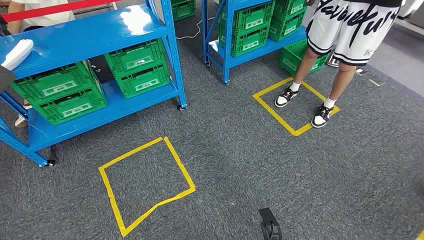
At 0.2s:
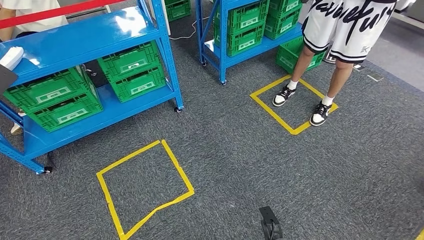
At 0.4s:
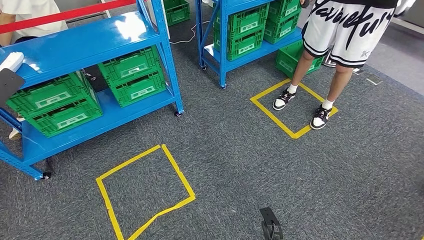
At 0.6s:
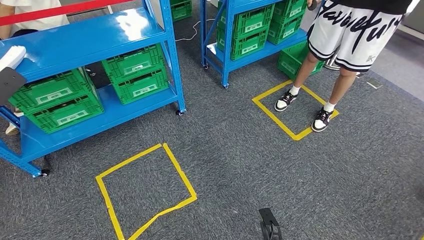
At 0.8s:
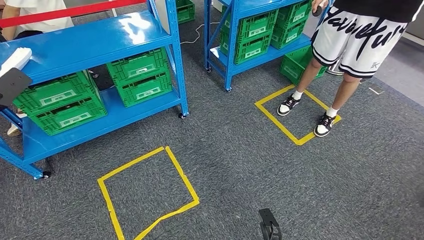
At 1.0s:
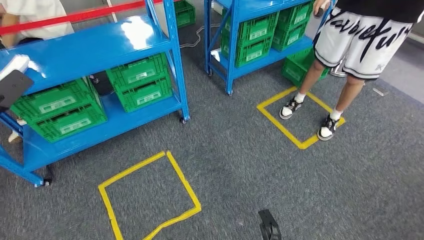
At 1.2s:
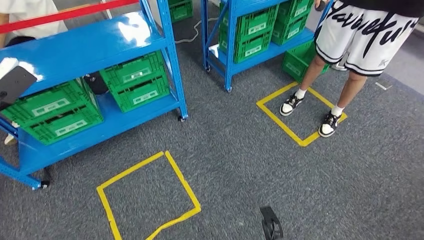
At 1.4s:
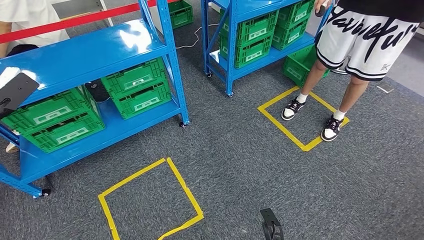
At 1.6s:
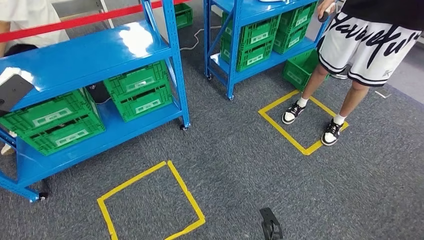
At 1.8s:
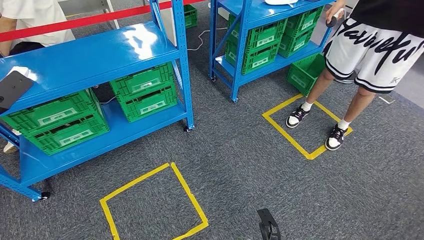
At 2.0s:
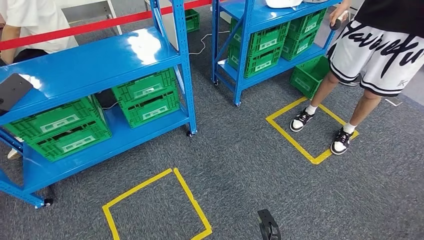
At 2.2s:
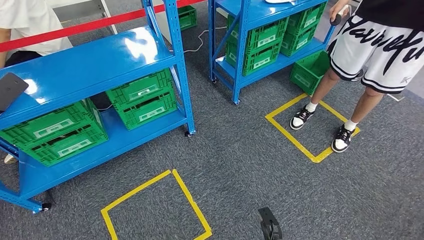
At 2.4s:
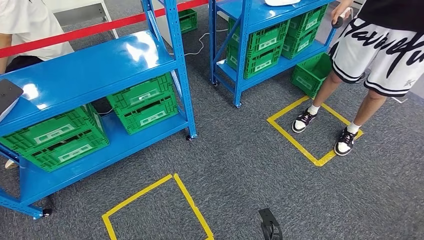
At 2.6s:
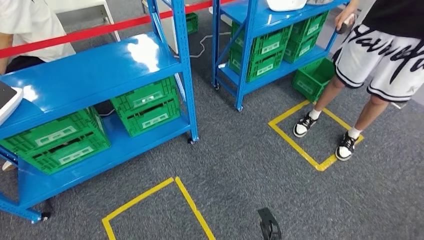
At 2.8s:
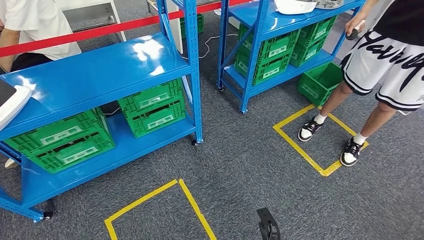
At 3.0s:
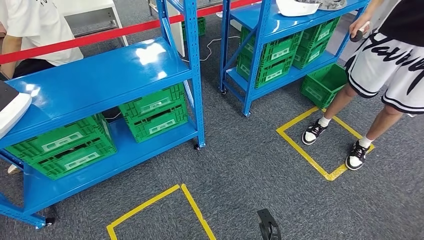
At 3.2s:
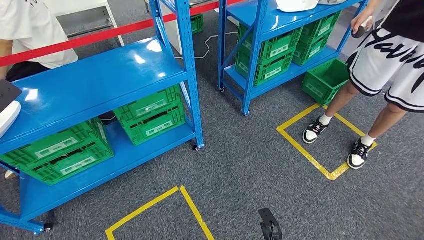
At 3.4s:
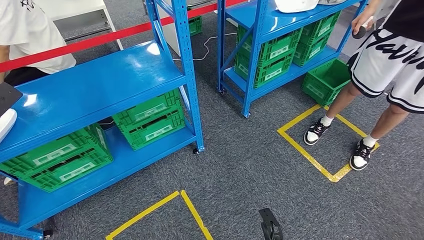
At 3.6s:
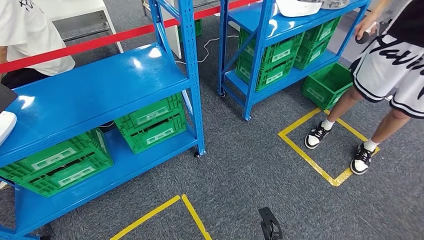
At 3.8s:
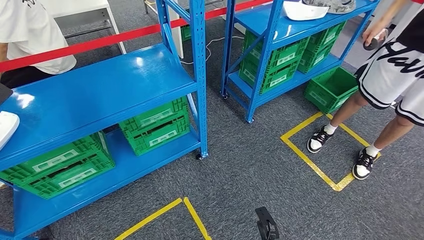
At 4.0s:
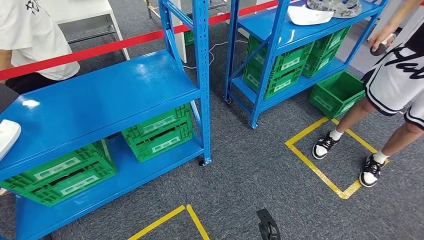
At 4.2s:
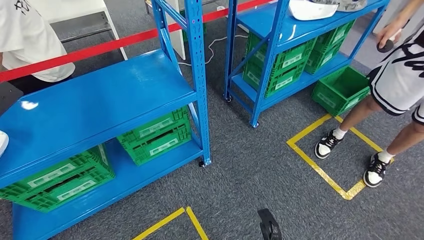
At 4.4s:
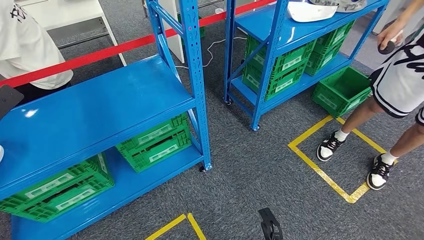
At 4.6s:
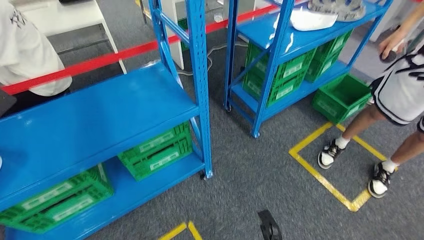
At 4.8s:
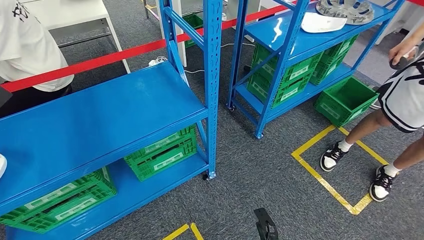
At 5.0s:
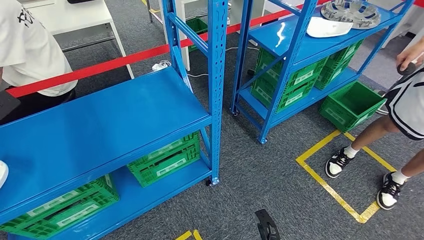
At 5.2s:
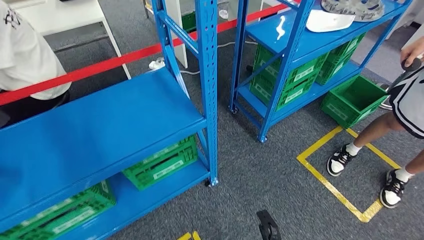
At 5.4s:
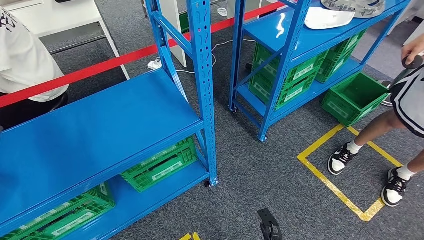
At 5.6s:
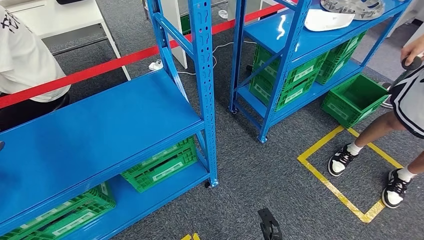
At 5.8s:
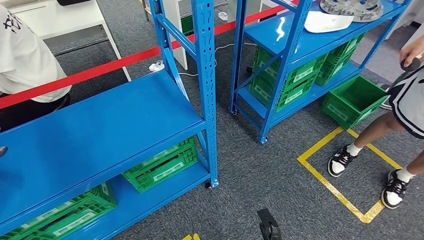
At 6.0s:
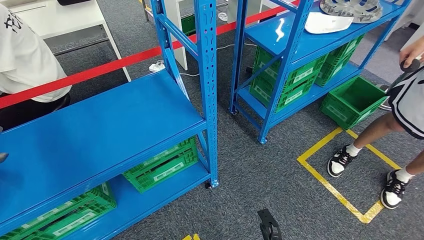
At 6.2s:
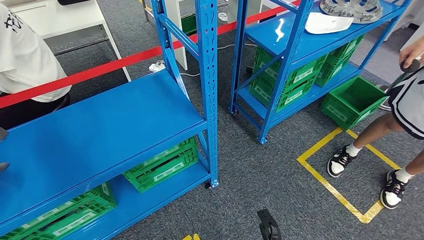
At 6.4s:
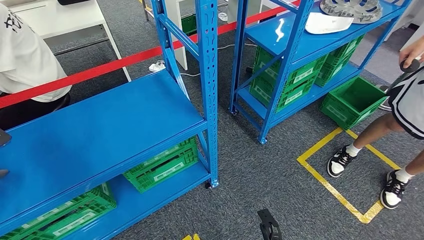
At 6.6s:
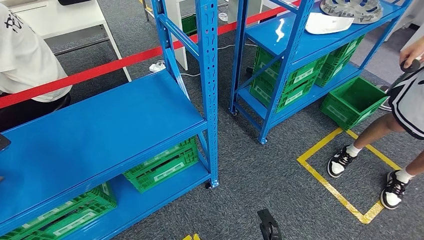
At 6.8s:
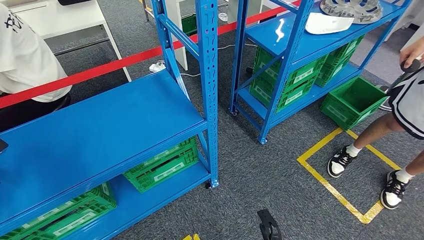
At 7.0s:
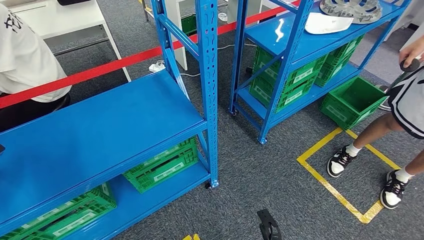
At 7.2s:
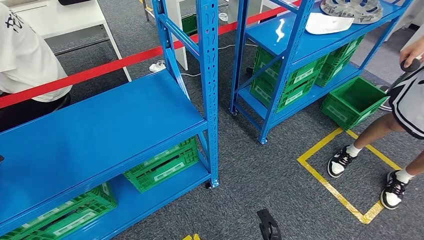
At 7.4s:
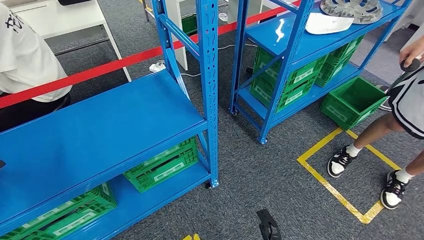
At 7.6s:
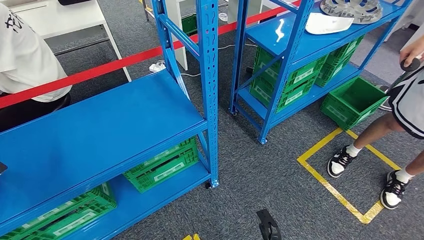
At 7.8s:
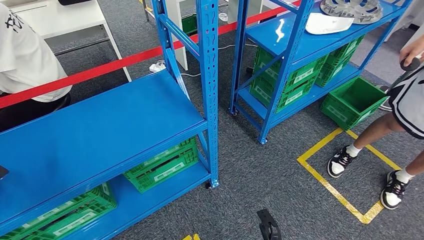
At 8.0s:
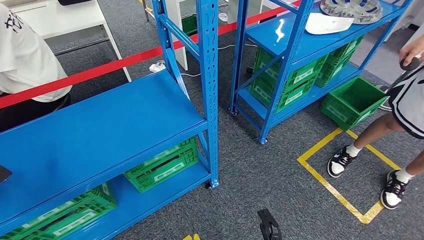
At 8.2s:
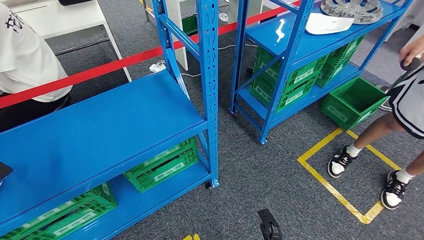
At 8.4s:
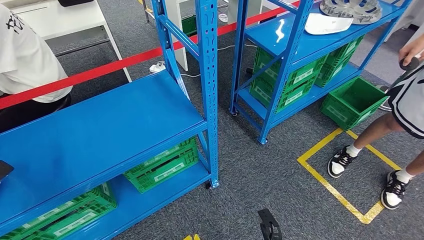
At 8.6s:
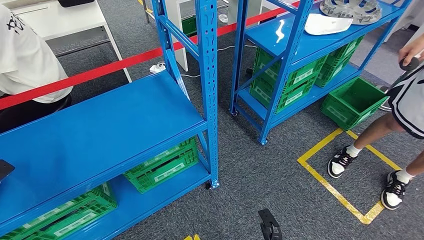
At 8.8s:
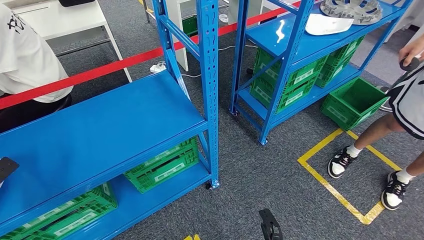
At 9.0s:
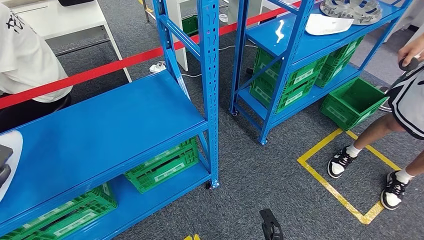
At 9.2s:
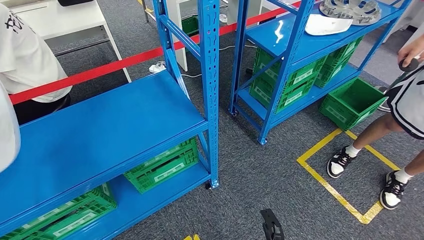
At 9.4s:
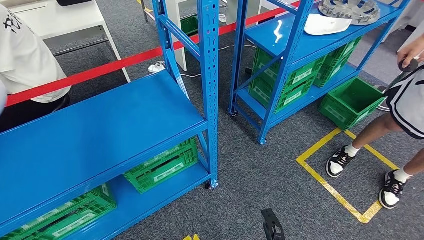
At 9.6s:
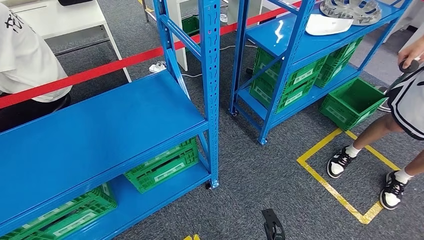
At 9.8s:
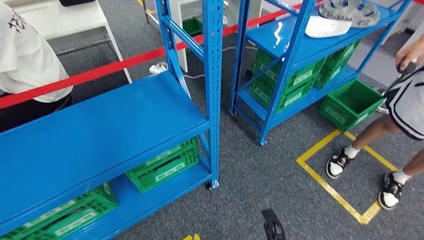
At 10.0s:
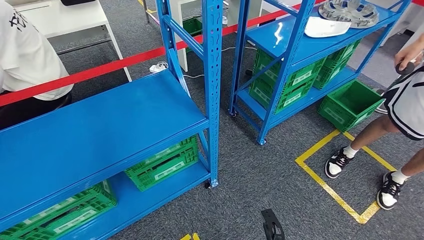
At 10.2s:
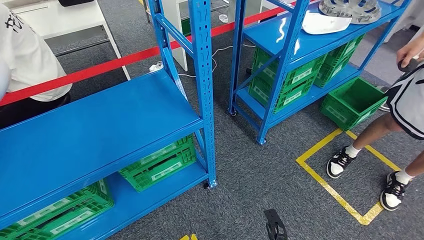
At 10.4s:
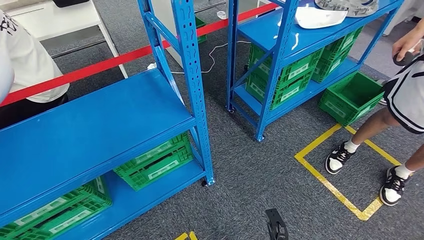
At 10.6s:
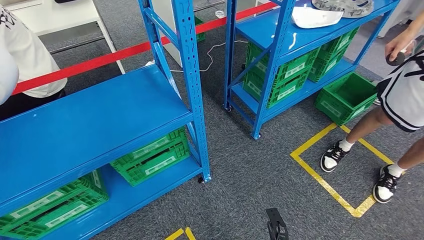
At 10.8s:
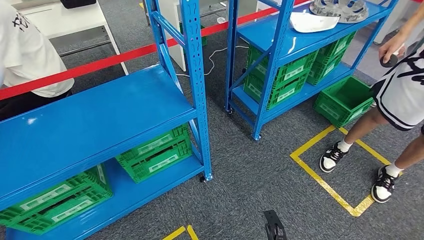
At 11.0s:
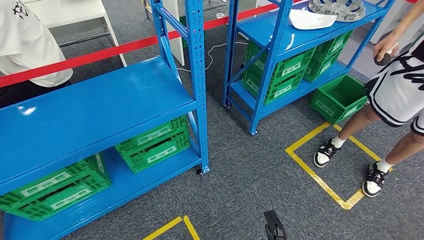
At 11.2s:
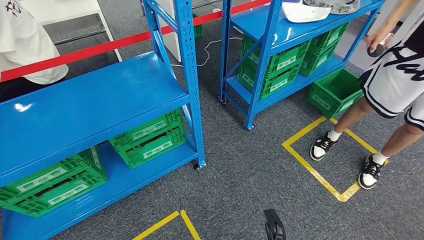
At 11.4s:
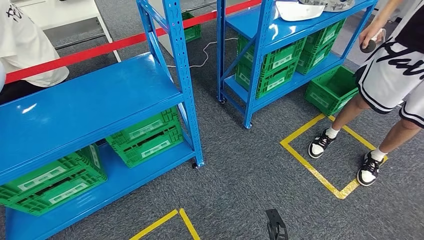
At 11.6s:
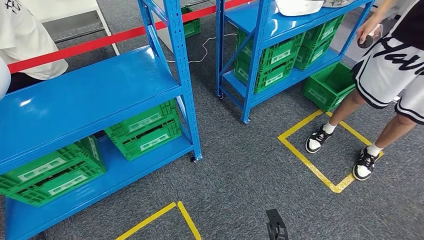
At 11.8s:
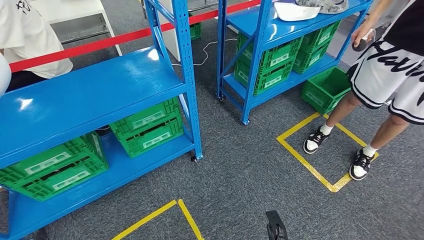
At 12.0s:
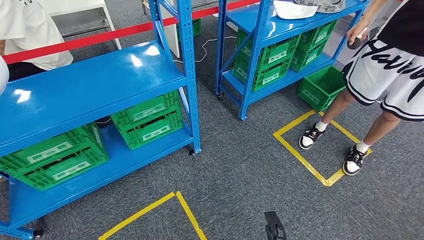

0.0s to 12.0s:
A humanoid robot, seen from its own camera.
Step, 0.0s to 10.4s: Pick up the small component from the shelf.
6.0s to 7.6s: The left hand ends up roughly 5 cm from where it was.
7.6s to 9.0s: The left hand changes place by roughly 5 cm.

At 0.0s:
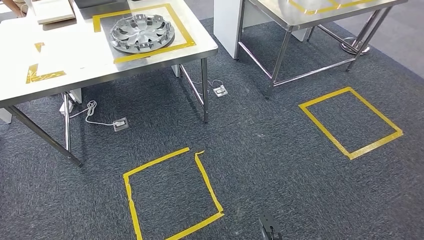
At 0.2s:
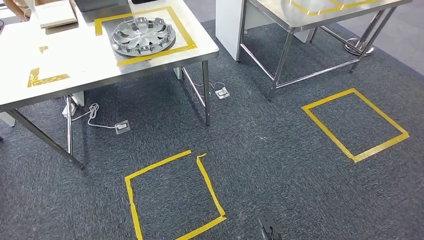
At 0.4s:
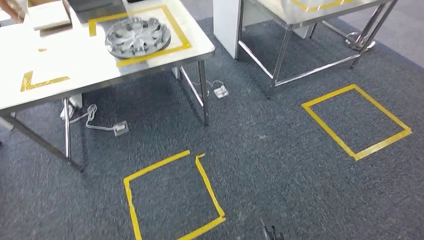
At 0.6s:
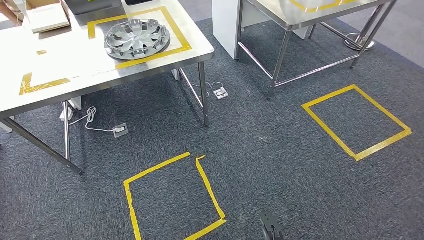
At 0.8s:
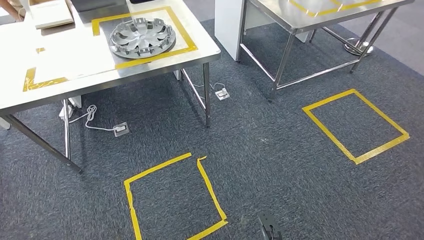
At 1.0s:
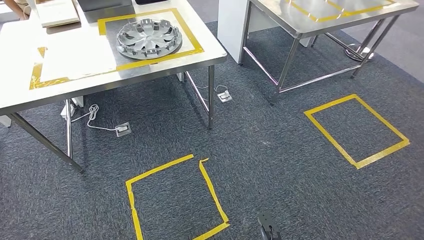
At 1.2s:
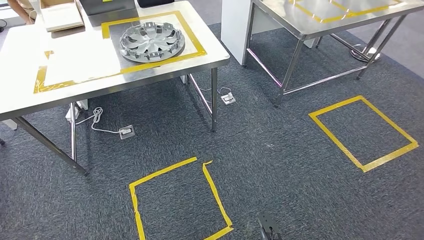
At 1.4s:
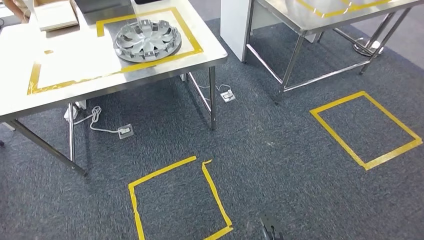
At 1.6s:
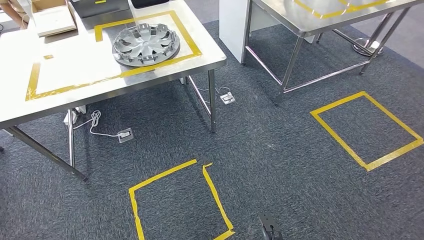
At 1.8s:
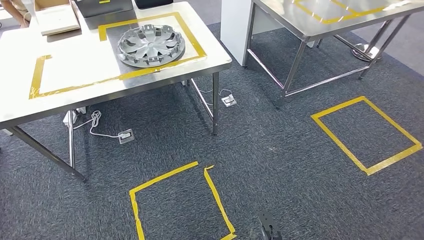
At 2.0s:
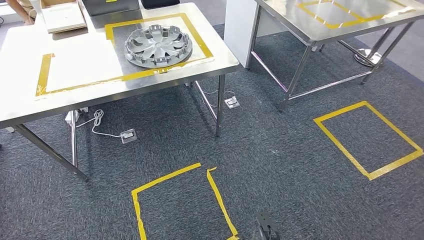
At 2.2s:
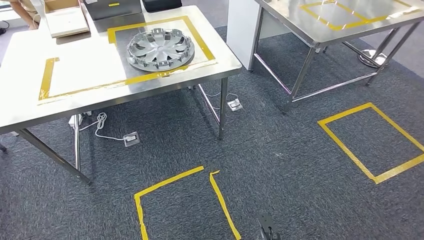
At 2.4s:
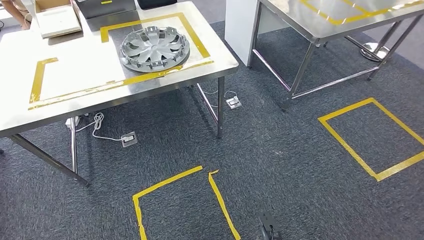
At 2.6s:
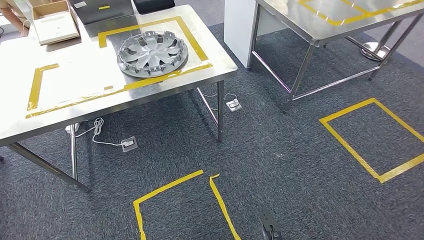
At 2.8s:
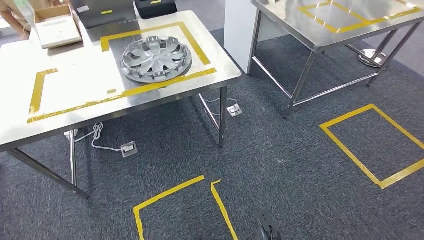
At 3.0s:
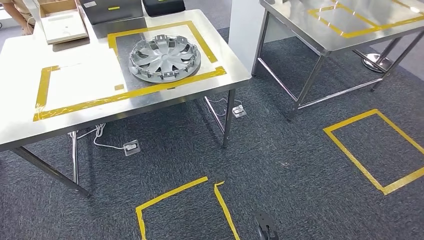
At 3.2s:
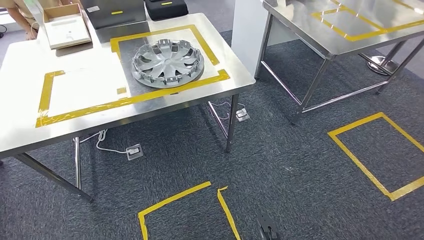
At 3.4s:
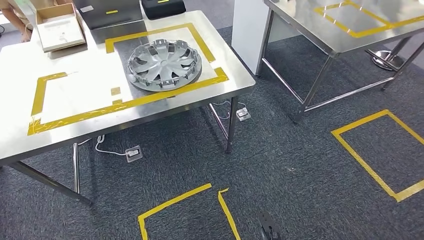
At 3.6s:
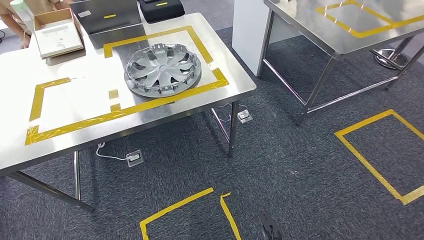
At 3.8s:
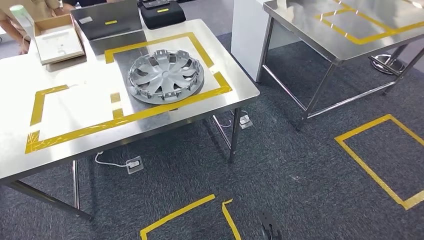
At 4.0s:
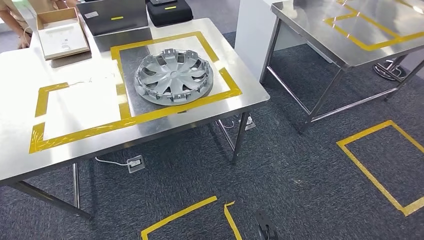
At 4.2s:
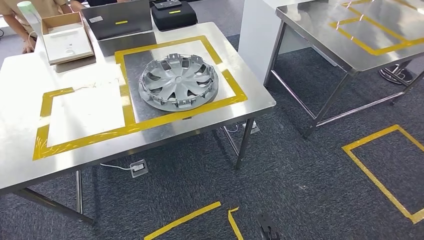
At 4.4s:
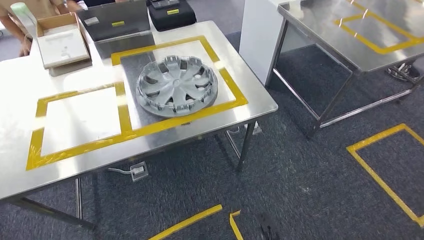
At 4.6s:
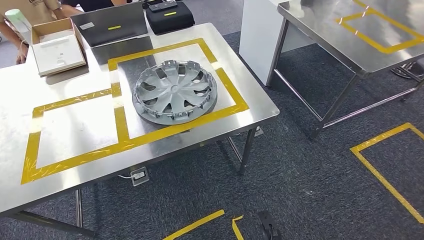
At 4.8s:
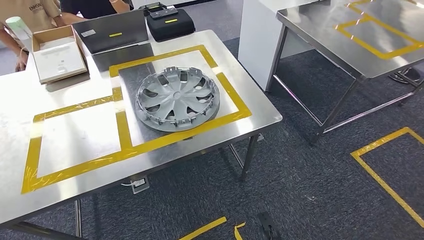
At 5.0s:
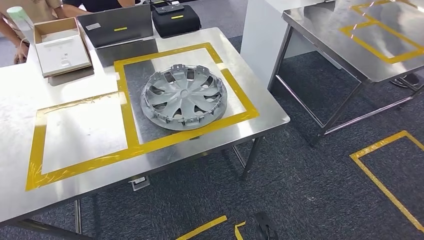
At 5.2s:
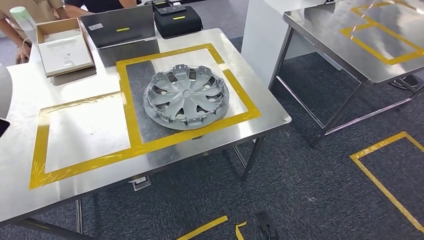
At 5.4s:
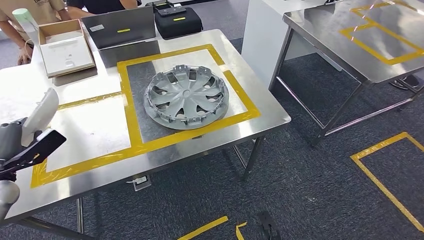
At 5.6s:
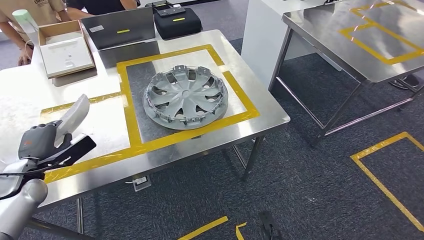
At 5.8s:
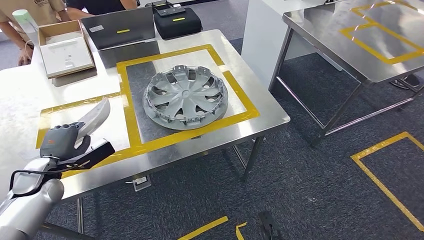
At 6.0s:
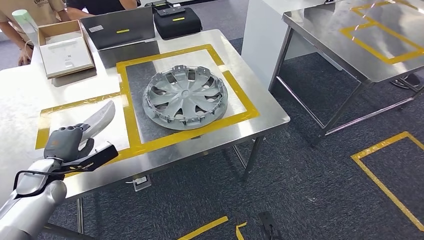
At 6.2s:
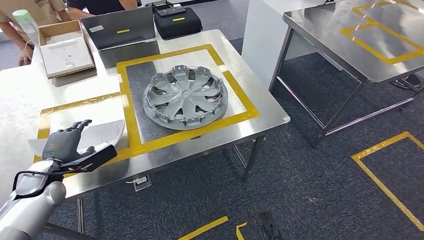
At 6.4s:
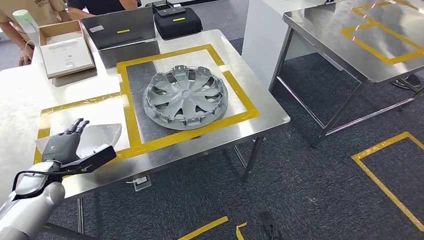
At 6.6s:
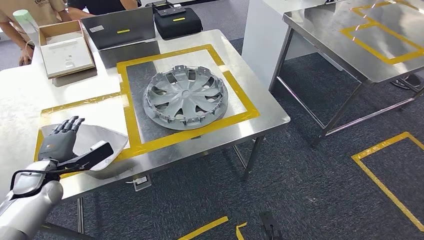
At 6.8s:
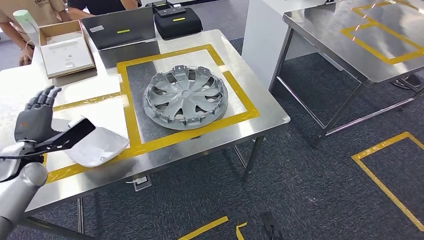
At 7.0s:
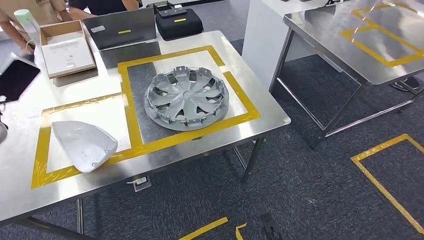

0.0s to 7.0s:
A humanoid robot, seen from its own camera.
Step, 0.0s to 4.0s: Move the small component to the workbench.
5.6s to 7.0s: The left hand travels upward by roughly 15 cm.
